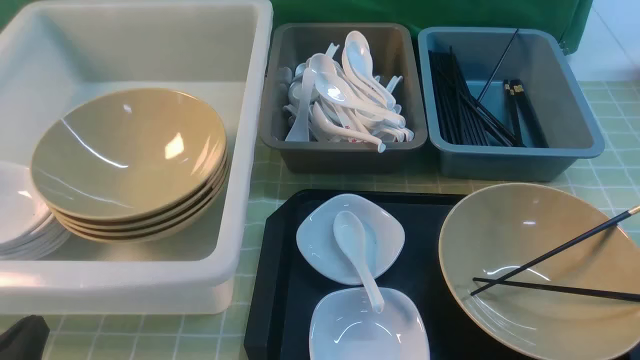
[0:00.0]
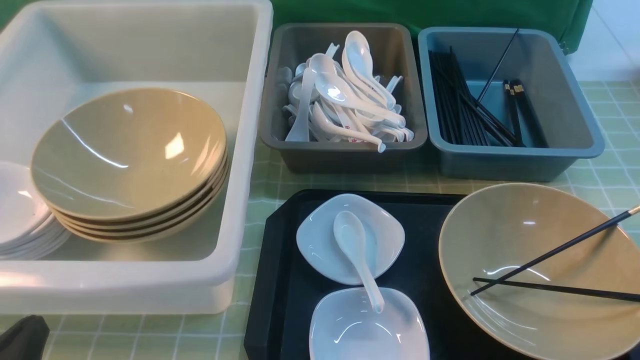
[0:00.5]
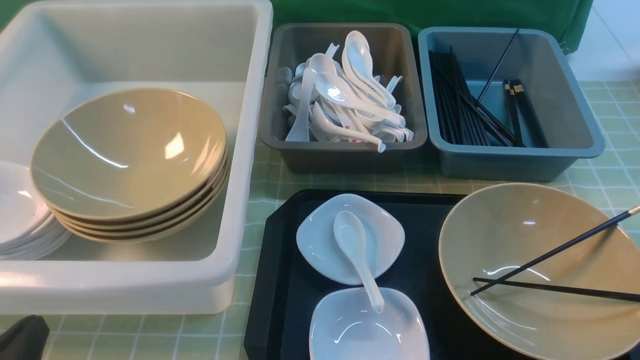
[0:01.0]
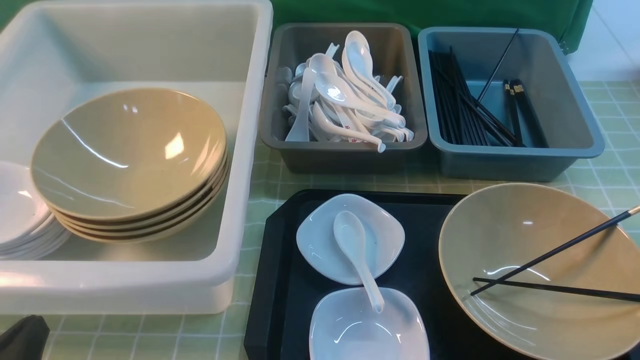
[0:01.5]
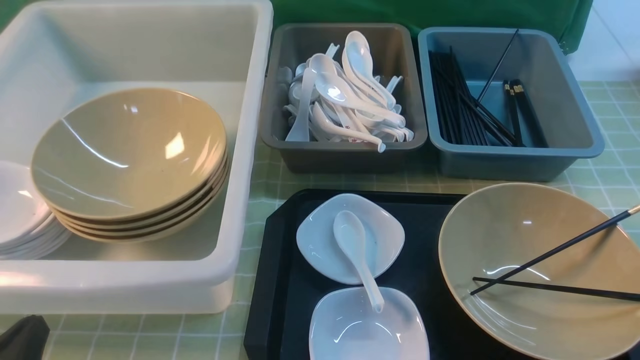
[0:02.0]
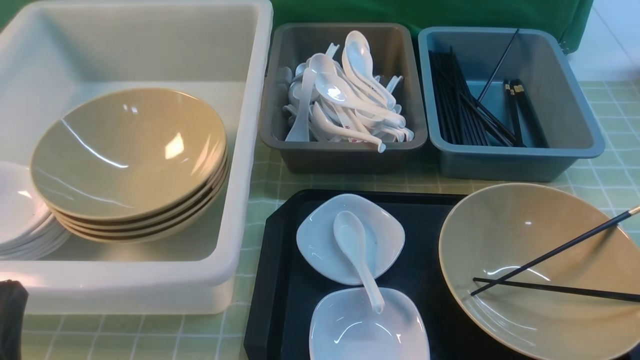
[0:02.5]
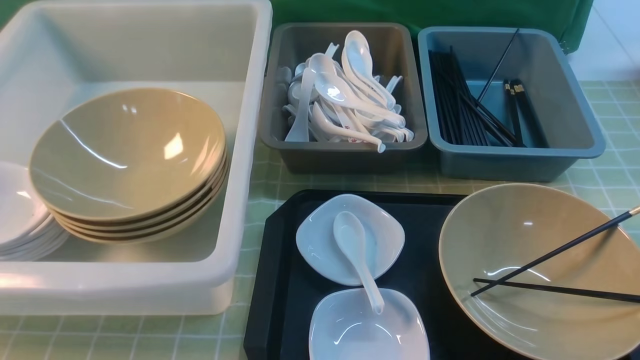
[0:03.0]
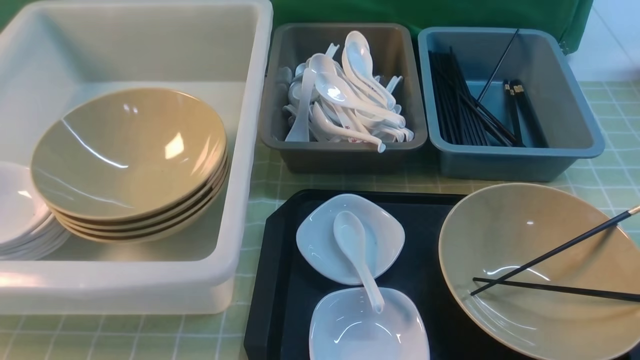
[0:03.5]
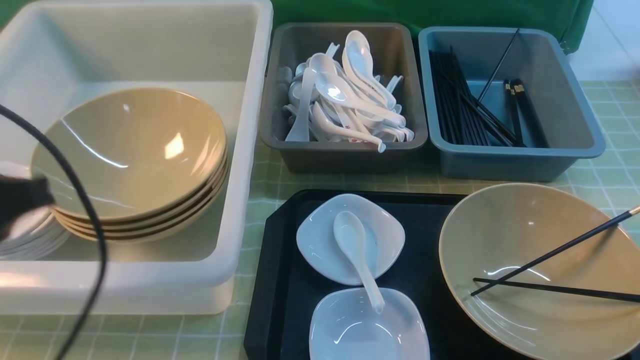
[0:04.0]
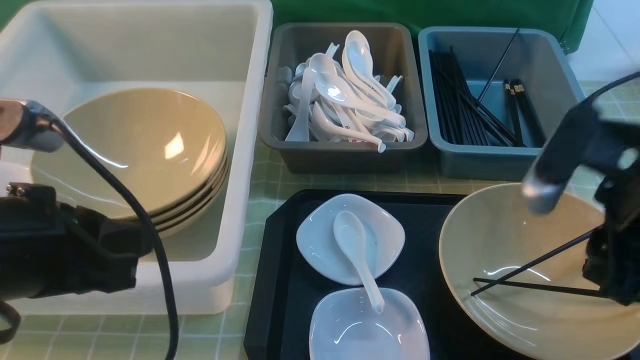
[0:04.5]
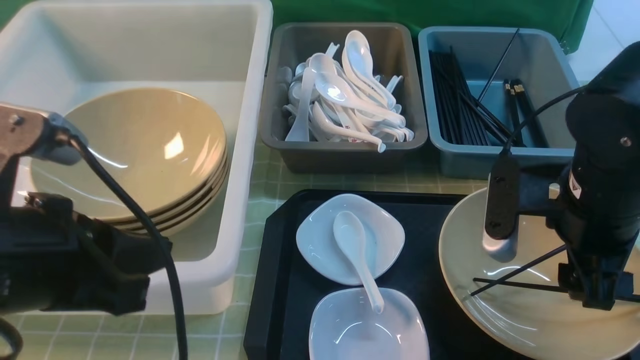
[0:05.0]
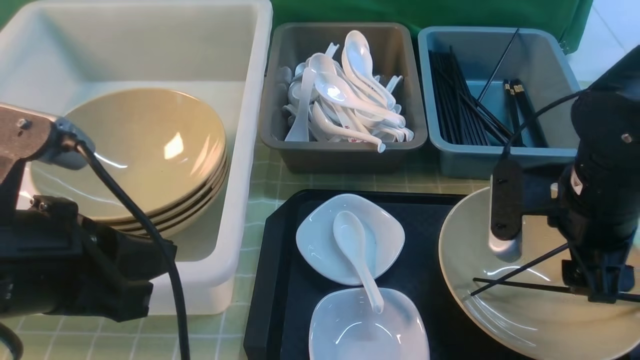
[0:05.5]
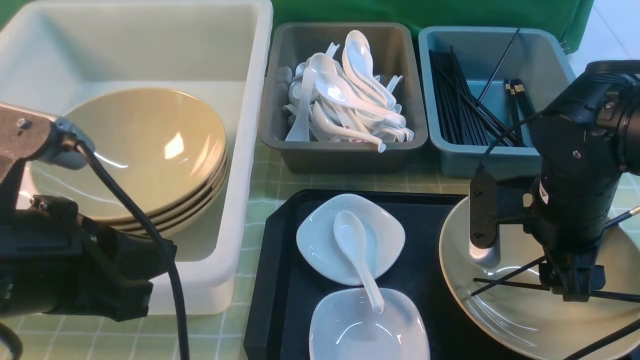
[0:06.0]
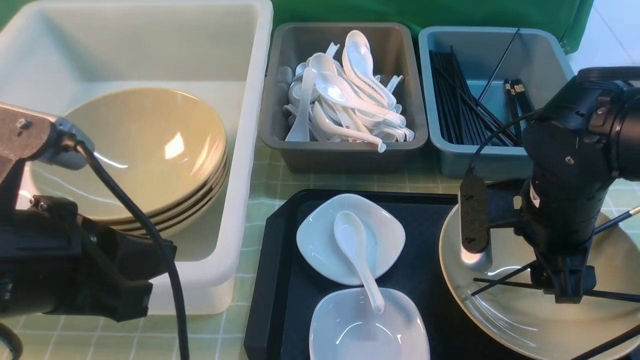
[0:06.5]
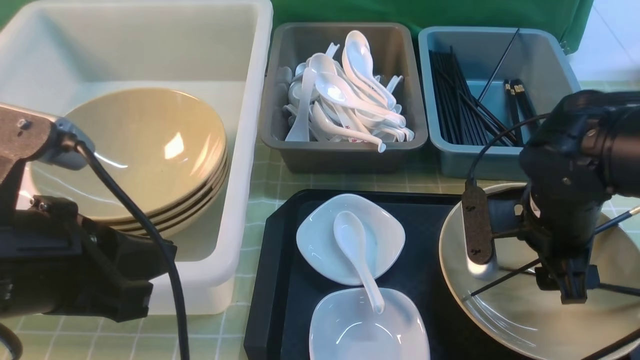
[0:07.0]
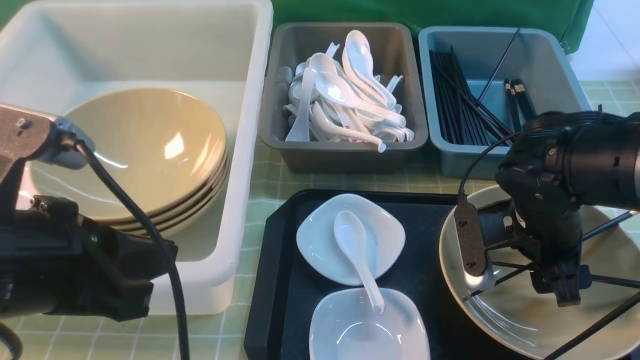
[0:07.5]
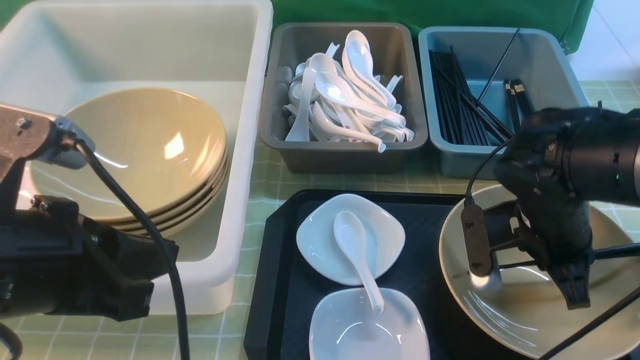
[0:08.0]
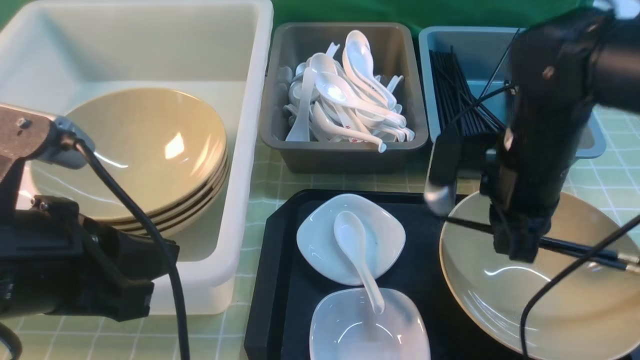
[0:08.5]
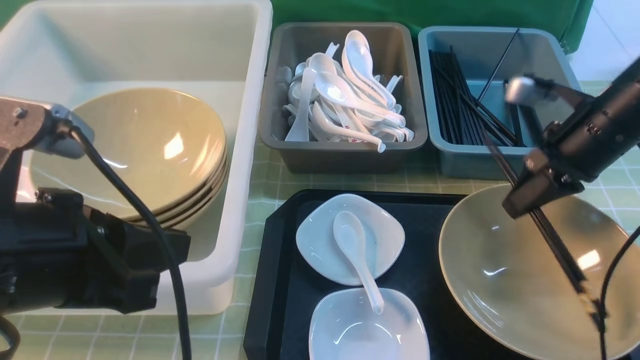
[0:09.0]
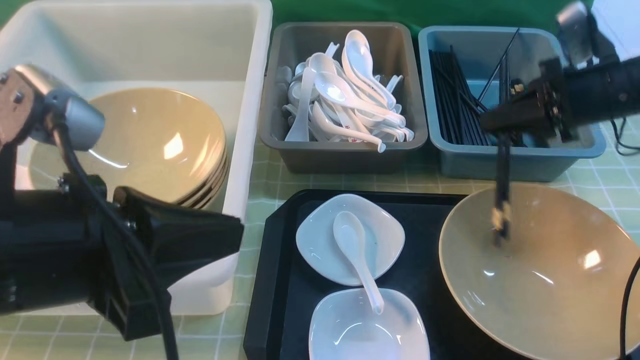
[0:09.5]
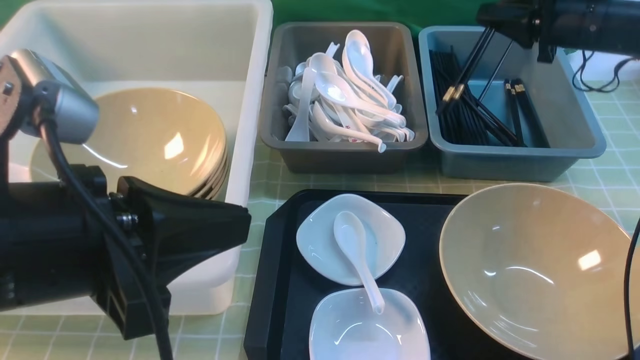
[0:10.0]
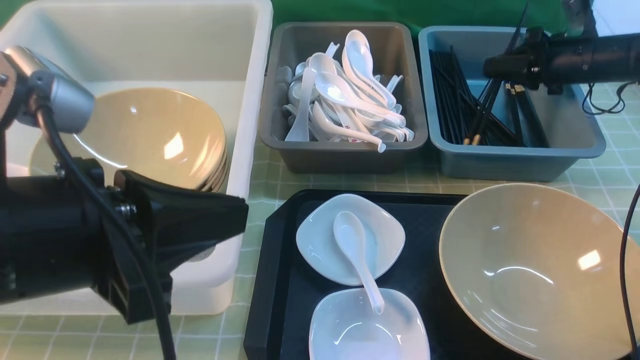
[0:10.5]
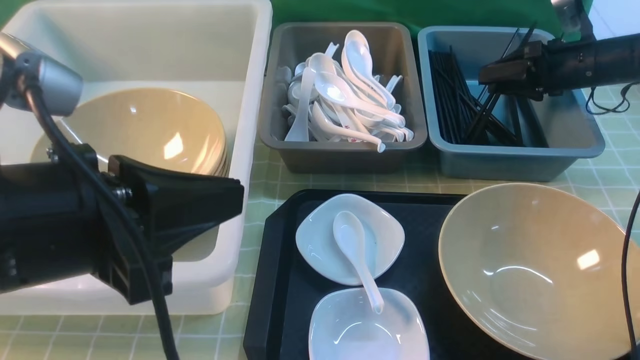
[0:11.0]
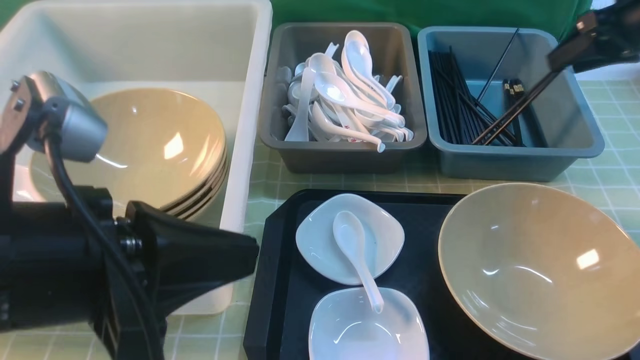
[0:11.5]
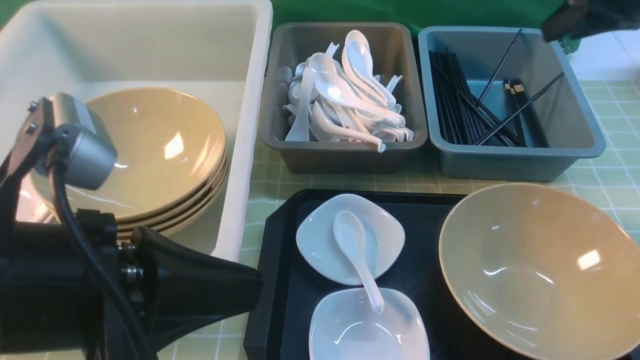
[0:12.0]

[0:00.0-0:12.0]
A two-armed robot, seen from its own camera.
Task of the whole recording: on green table put chopsticks spoon bowls plates into blue grey white boxes.
Step, 0:00.0 to 0:08.5: use the right arm to grab the chopsticks.
0:00.0 to 0:02.0: Both grippers stay about where they are.
0:02.0 to 0:04.0: Both grippers travel together upward and forward, about 20 cm.
0:04.0 to 0:06.0: The left gripper travels to the right by approximately 5 cm; the right gripper heads forward, downward and to the left, covering roughly 20 cm, and opens.
0:06.0 to 0:08.0: The right gripper closes up.
0:08.0 to 0:10.0: The right gripper is displaced forward and to the right by roughly 25 cm.
0:10.0 to 0:12.0: The right gripper heads upward, covering some 10 cm, and opens up.

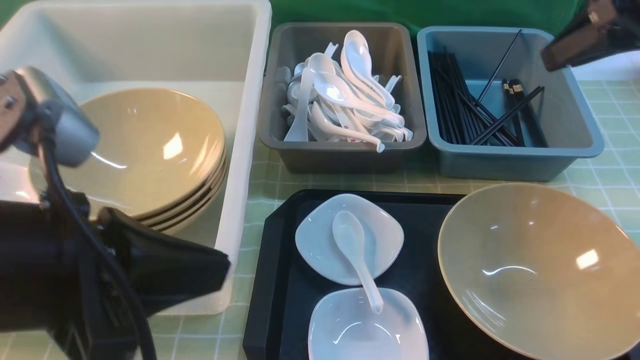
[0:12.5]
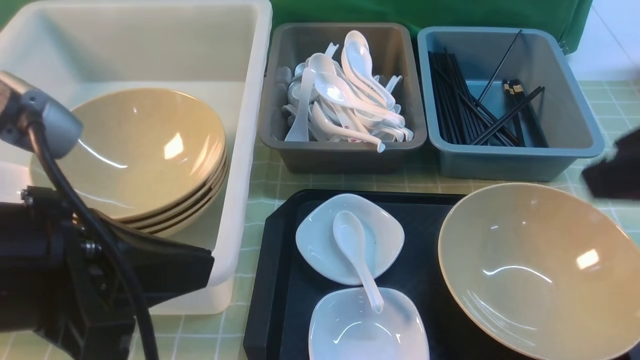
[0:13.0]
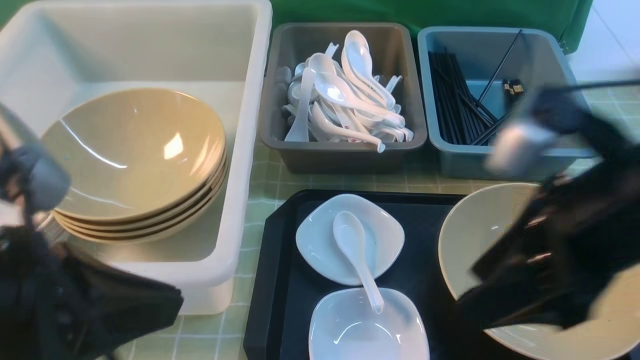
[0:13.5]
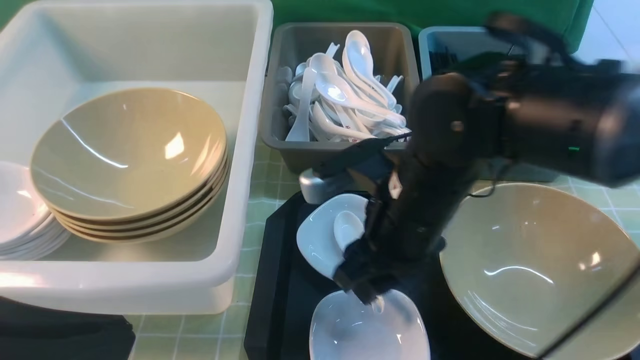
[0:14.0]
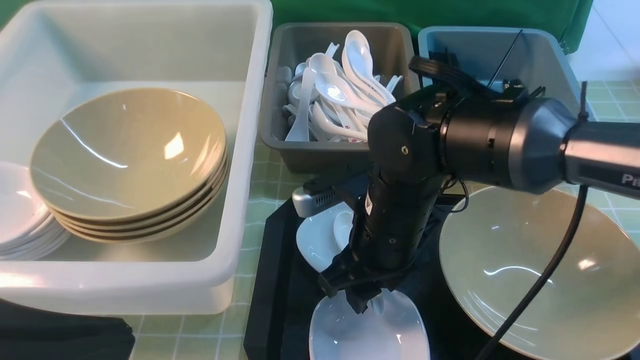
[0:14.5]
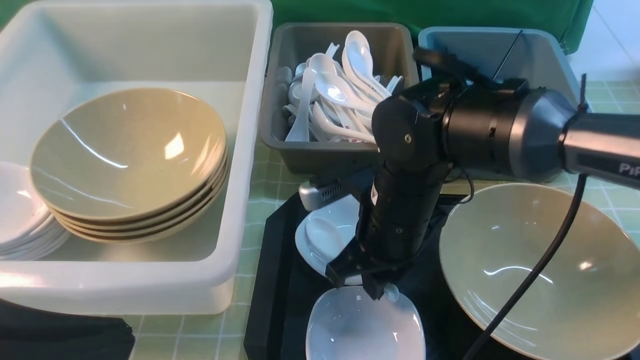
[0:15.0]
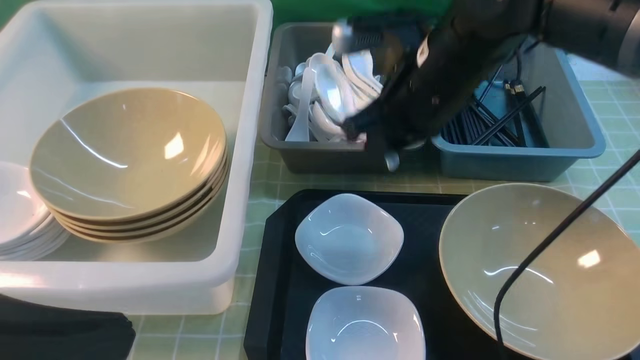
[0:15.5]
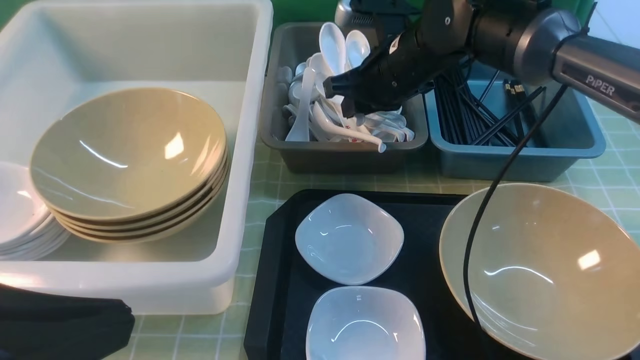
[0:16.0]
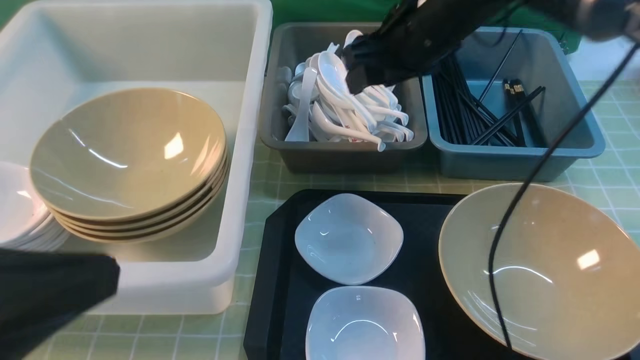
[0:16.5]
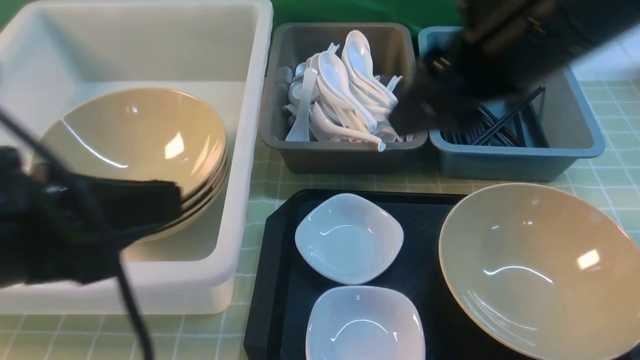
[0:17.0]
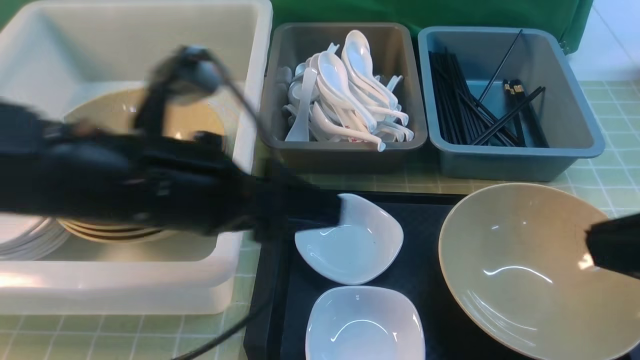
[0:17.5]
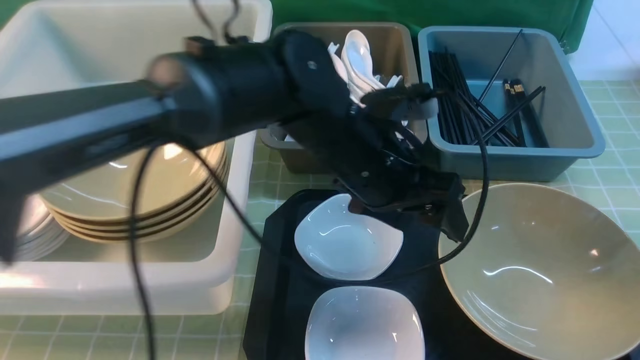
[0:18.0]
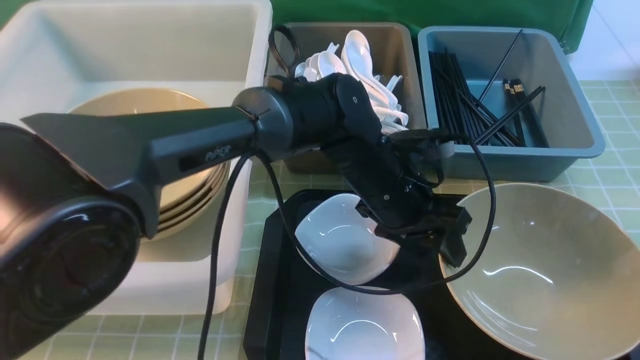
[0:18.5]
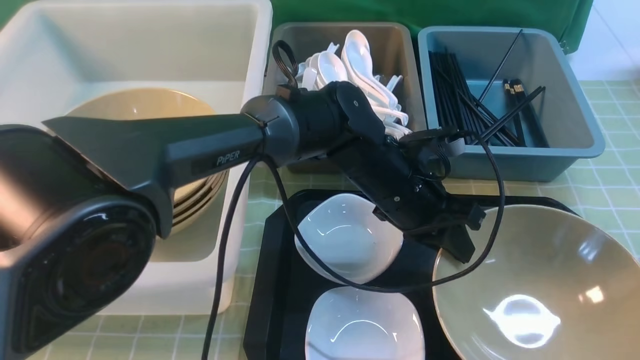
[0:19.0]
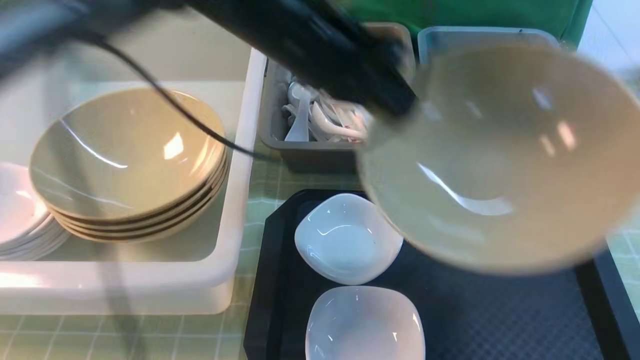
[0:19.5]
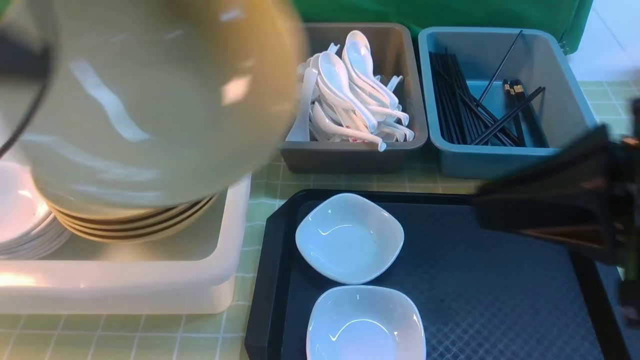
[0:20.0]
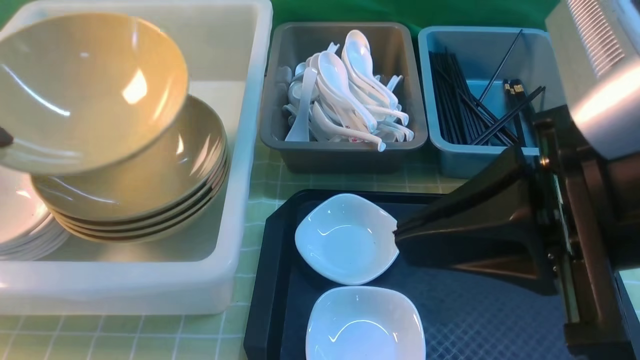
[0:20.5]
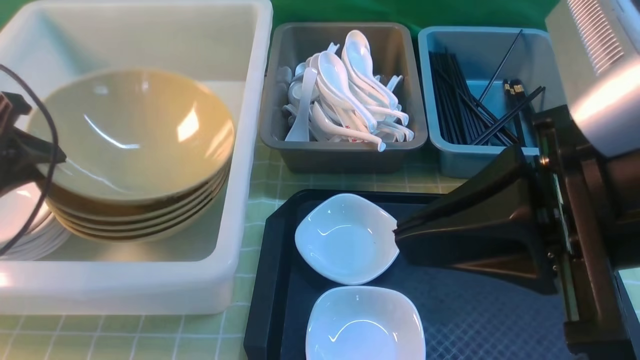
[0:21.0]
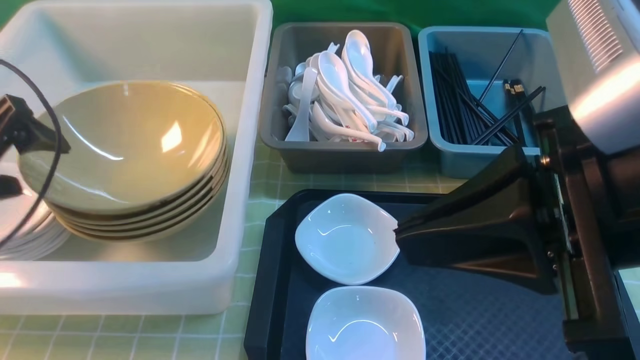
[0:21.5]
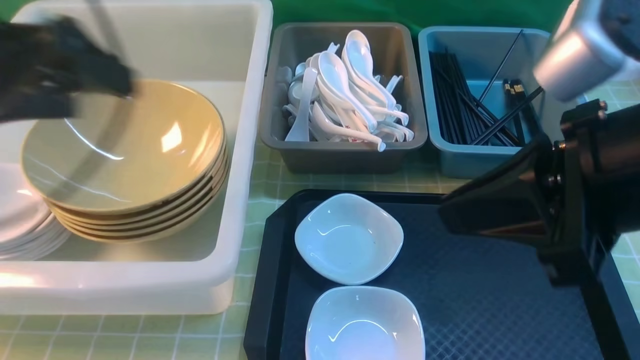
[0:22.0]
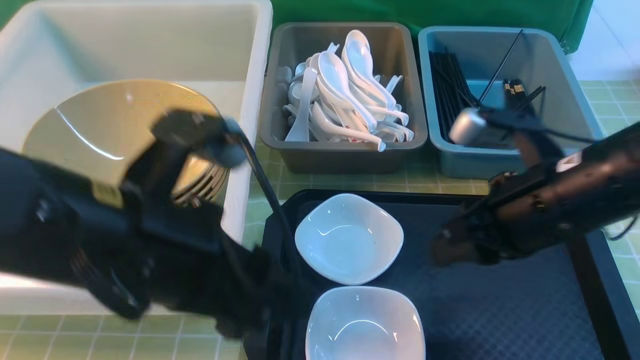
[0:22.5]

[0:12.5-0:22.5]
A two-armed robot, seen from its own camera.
Task of the whole recording: on green table put chopsticks spoon bowls plates into blue grey white boxes.
Step, 0:12.5 to 0:15.0: use the right arm to grab the soup spoon in the middle.
Step, 0:15.5 to 0:16.5: use the right arm to put the soup spoon into the small storage box in the middle.
Step, 0:17.0 to 0:19.0: use the left arm to grab the yellow noodle bowl on the left.
Step, 0:19.5 to 0:21.5: use the left arm to put the noodle bowl into the large storage box on the left.
0:12.5 to 0:14.5: The left gripper travels backward by about 5 cm. The right gripper shifts roughly 30 cm to the left and downward.
0:14.5 to 0:16.5: The right gripper is displaced upward, forward and to the right by some 20 cm, and closes and opens again.
0:16.5 to 0:18.5: The left gripper moves to the right, forward and downward, roughly 40 cm, and opens up. Meanwhile the right gripper moves backward and to the right, about 40 cm, and closes up.
0:18.5 to 0:20.5: The left gripper goes about 40 cm to the left, and closes up, while the right gripper shifts about 15 cm to the left and forward.
0:20.5 to 0:22.5: The right gripper is displaced downward and forward by roughly 20 cm; the left gripper shifts roughly 25 cm to the right, and opens up.
